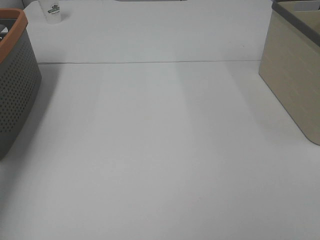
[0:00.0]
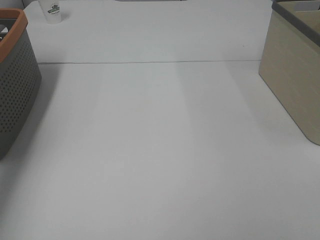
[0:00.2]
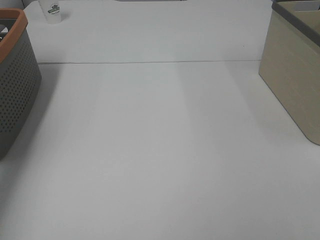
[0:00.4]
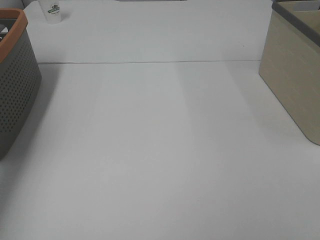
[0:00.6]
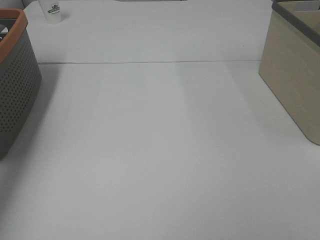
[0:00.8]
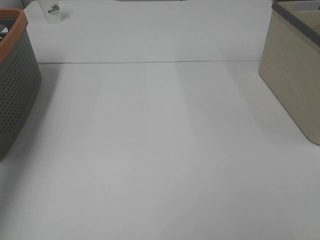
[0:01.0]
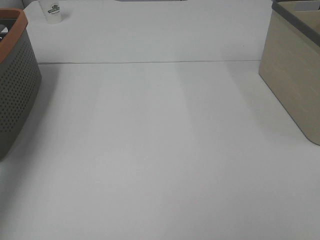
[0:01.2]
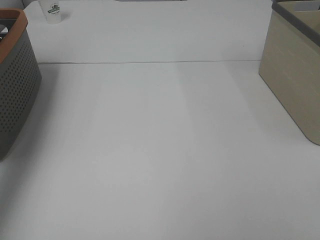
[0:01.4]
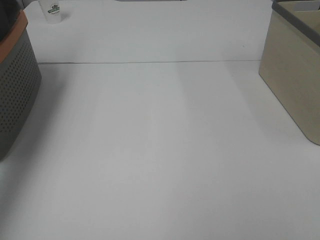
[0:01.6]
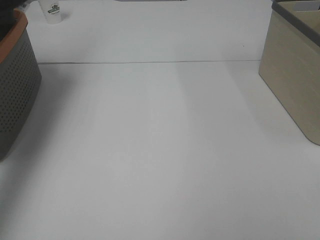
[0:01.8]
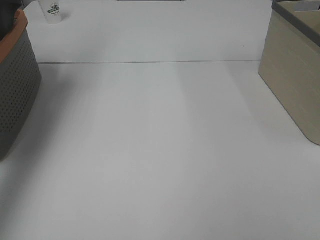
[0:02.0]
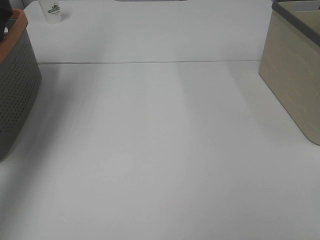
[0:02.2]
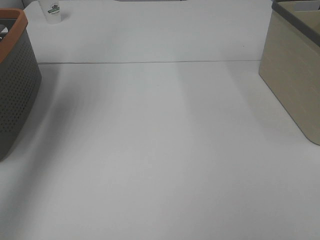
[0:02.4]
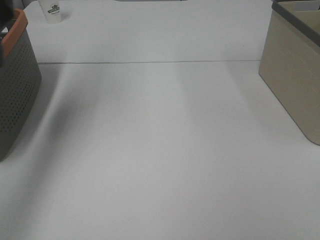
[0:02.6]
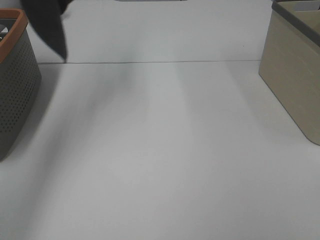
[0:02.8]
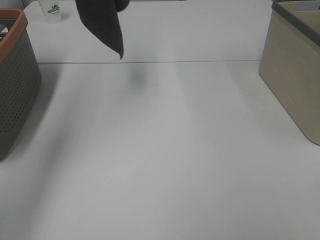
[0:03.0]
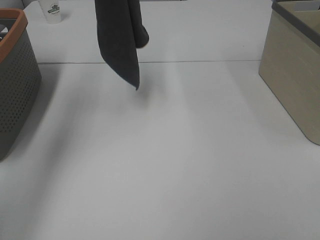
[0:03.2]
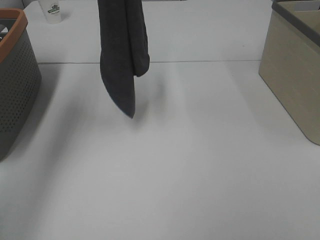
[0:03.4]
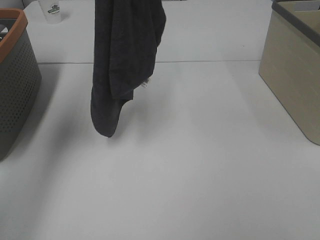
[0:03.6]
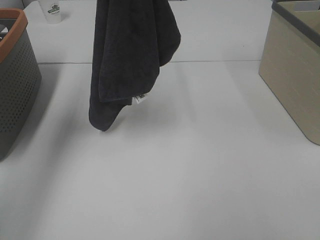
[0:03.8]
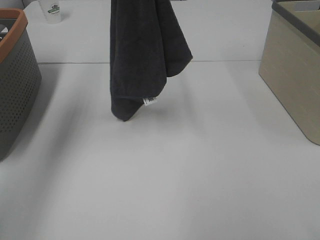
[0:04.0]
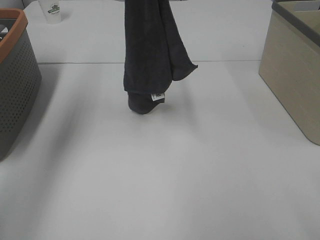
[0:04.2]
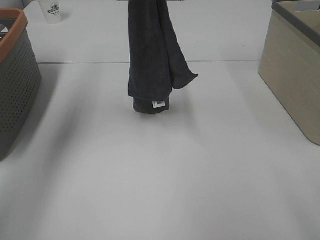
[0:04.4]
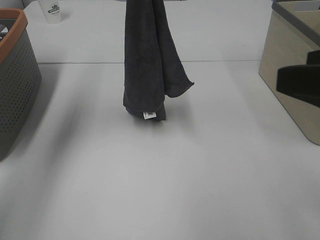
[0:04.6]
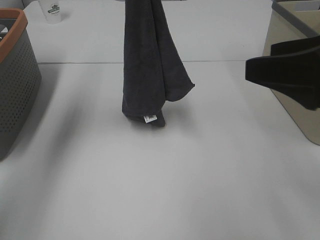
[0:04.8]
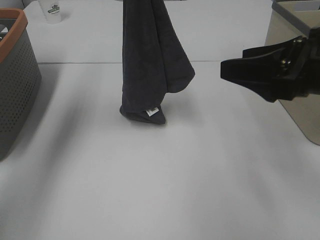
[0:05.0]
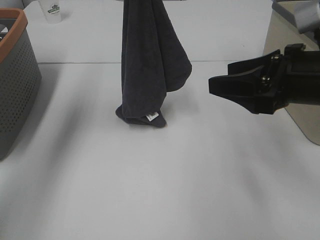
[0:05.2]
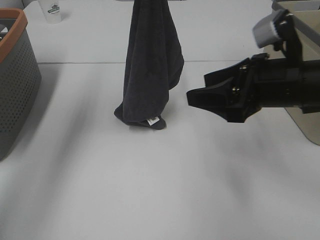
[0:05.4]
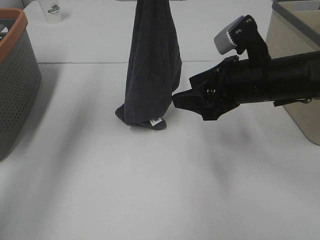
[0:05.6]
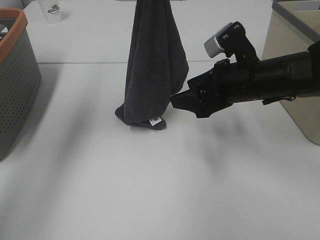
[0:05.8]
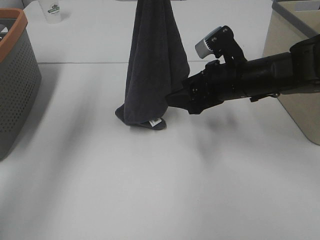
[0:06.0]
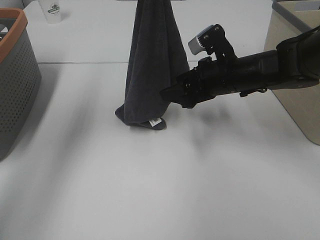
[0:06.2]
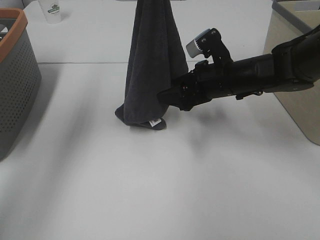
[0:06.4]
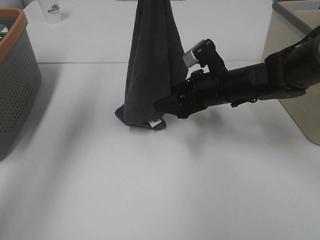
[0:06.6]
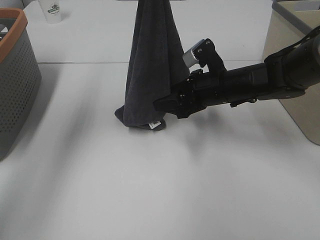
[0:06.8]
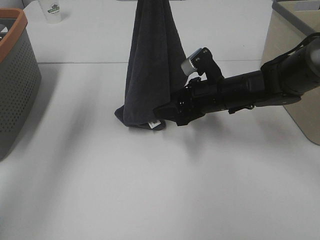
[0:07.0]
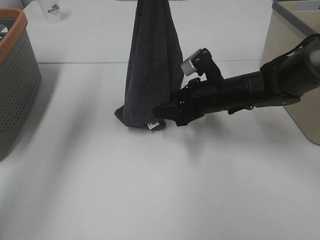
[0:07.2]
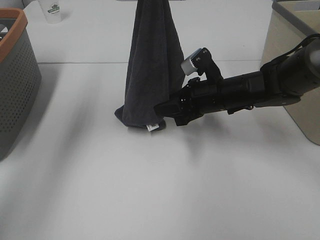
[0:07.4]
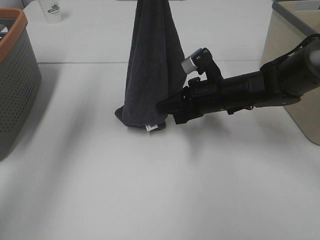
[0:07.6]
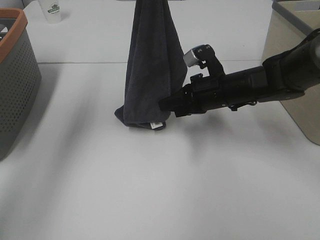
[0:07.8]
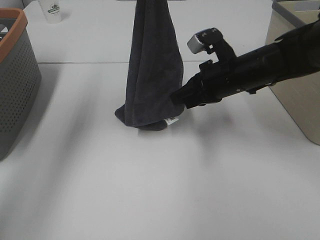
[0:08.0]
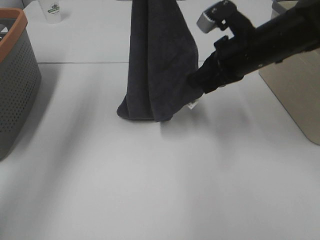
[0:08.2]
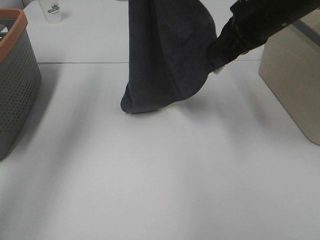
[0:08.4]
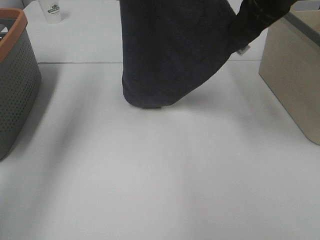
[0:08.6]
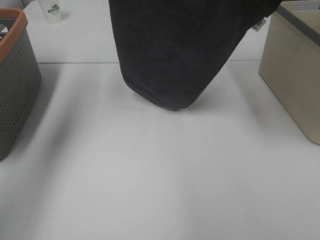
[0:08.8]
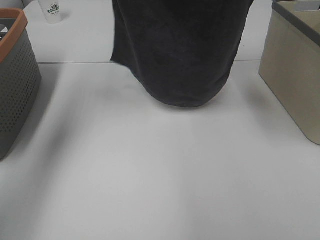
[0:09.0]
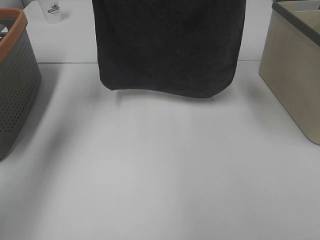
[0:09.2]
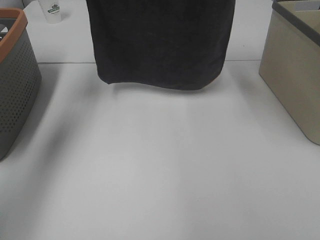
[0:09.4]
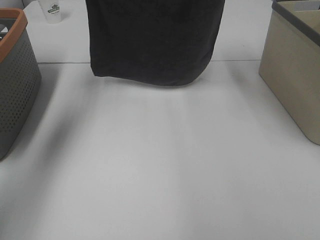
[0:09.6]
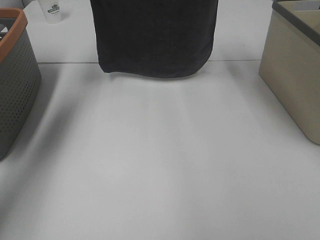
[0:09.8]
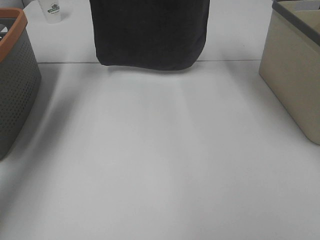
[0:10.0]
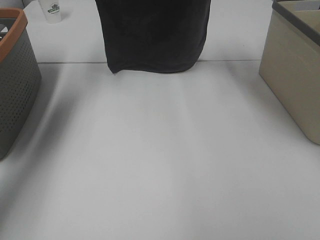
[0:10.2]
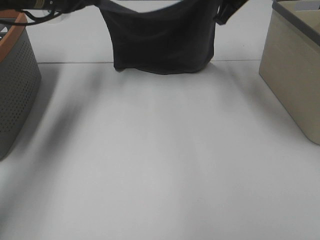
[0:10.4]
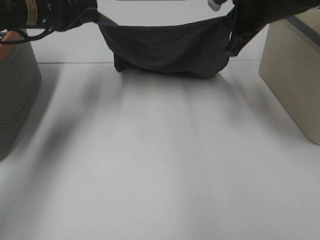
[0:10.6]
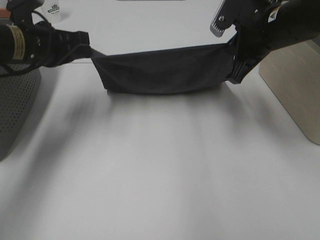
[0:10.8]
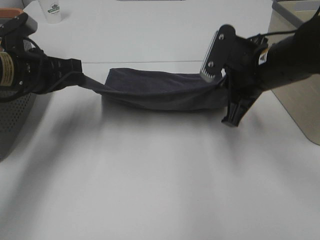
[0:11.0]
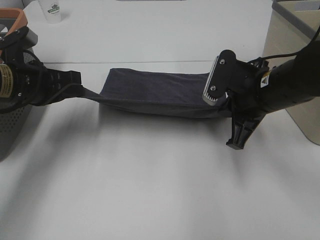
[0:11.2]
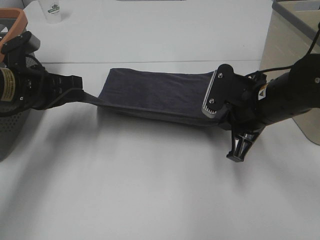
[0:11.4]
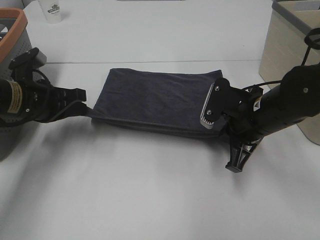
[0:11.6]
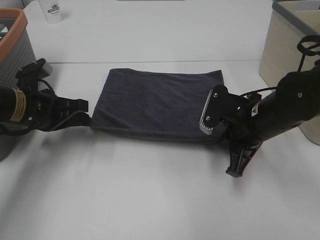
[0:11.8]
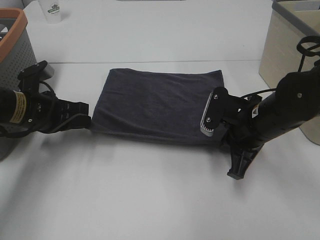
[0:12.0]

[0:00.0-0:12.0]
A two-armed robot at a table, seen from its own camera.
Task of the whole recording: Remove the towel and place it.
Step, 0:02.8 to 0:06.6: Right hand: grab a corner of the grey towel and straighten it.
Step, 0:06.8 to 0:08.6: Left hand: spread the grey towel flat on the table.
Step, 0:06.8 to 0:08.6: Right hand: spread the grey towel flat on the table.
0:00.0 to 0:01.6: The left gripper shifts approximately 25 cm upward.
0:01.6 to 0:03.0: The left gripper moves to the right, about 15 cm.
0:03.0 to 0:04.4: The right gripper travels forward by about 10 cm, while the left gripper moves downward, some 10 cm.
0:04.4 to 0:06.0: The left gripper moves approximately 5 cm. Meanwhile the right gripper shifts about 30 cm forward and downward.
0:06.0 to 0:07.6: The right gripper moves downward, about 5 cm, and closes up.
0:07.6 to 0:09.0: The right gripper goes about 30 cm upward; the left gripper heads to the left, covering roughly 5 cm.
0:09.0 to 0:10.4: Both grippers move downward and forward, some 10 cm.
0:10.4 to 0:12.0: The right gripper travels downward and backward by about 25 cm; the left gripper travels backward and downward by some 20 cm.

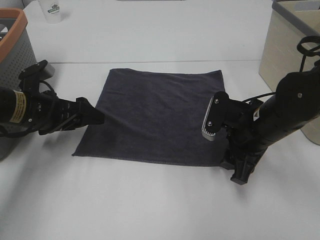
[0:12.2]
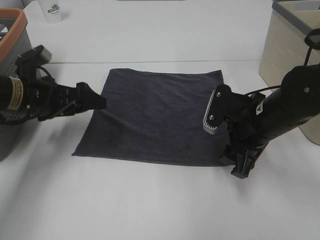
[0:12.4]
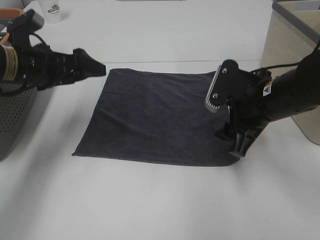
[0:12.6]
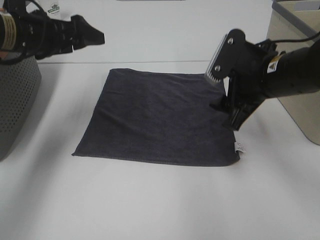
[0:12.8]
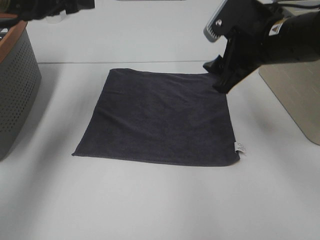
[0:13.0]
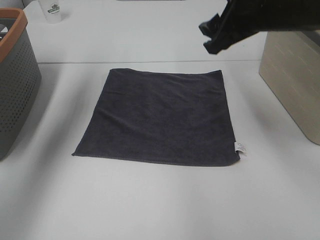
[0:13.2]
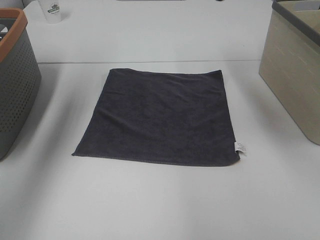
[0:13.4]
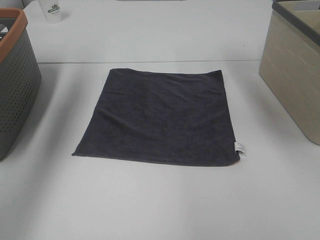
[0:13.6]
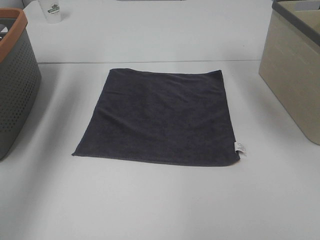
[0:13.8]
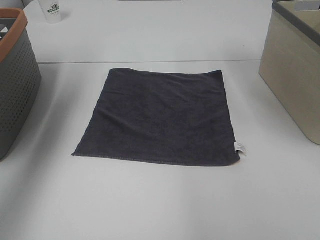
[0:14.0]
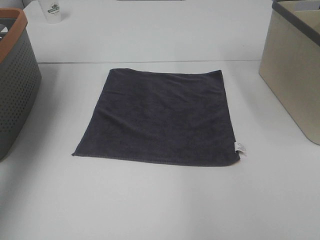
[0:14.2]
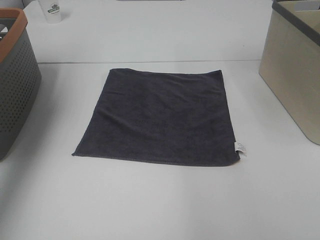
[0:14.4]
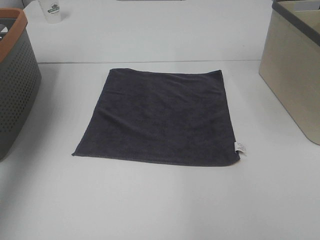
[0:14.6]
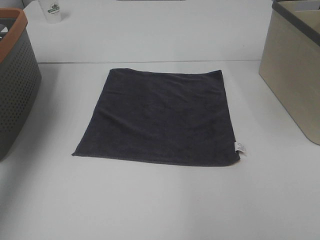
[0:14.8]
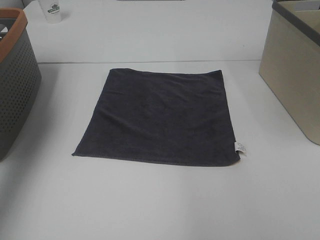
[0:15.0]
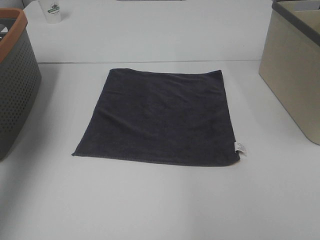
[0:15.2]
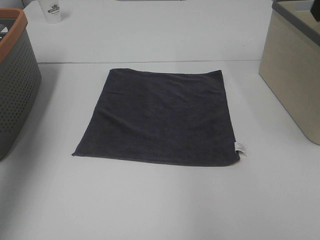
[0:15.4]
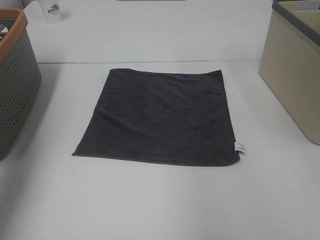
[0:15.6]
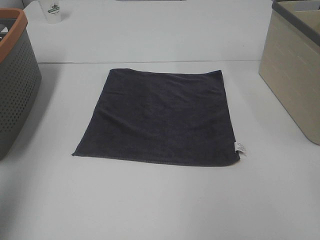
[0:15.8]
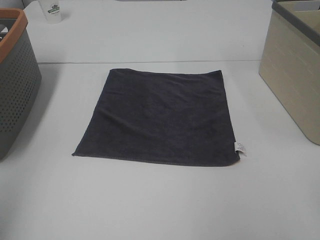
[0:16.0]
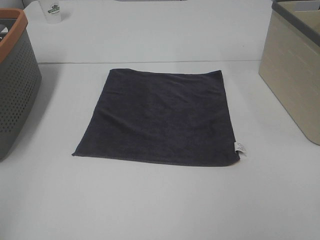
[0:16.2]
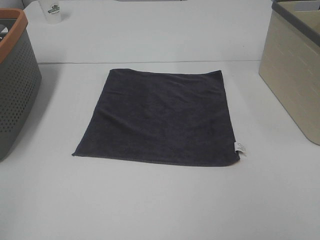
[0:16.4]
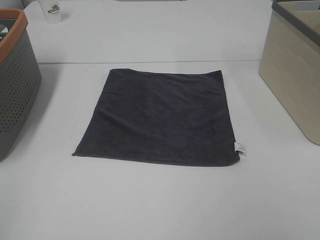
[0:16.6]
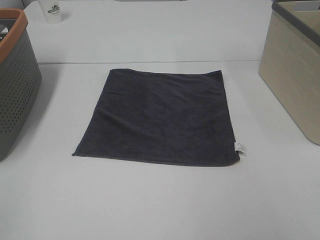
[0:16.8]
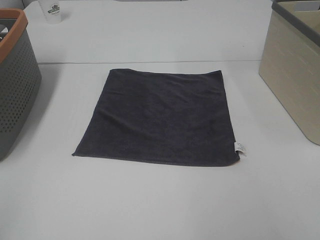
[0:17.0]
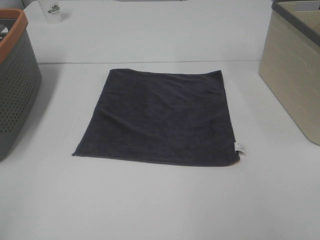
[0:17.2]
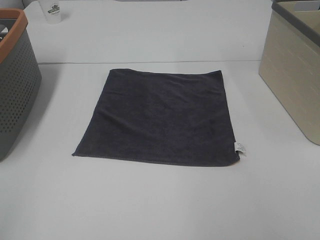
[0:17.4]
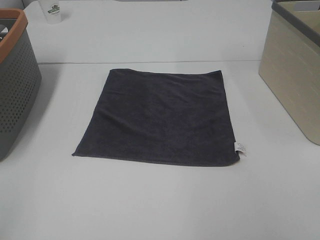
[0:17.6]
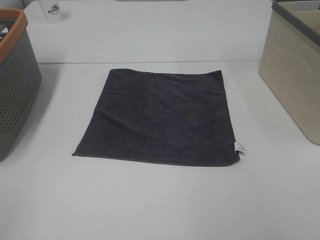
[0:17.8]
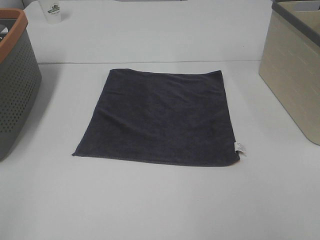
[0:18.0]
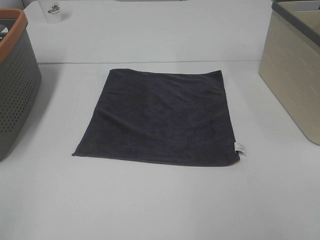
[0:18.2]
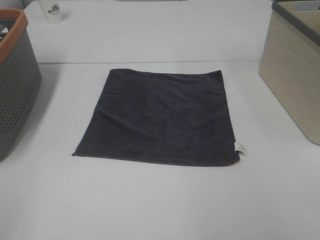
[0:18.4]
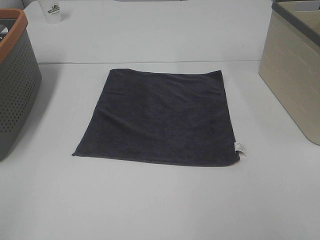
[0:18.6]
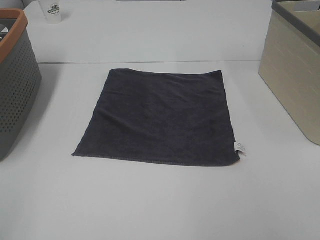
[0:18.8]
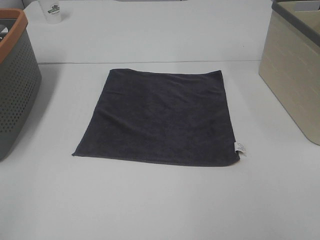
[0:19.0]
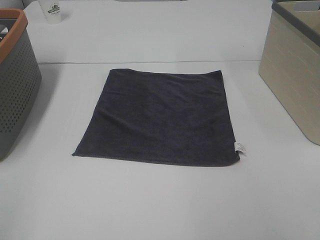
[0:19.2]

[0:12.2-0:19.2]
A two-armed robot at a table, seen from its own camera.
Task of the whole recording: Remove the towel and place it.
0:12.2 to 0:13.6: Both grippers move upward, some 25 cm.
0:13.6 to 0:15.0: The right gripper moves to the right and upward, some 10 cm; the left gripper goes some 10 cm to the left, backward and upward.
0:15.0 to 0:16.4: The left gripper goes roughly 30 cm backward.
0:17.8 to 0:19.2: Both grippers stay put.

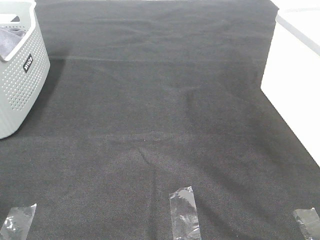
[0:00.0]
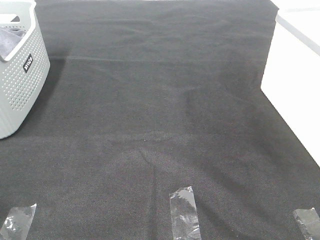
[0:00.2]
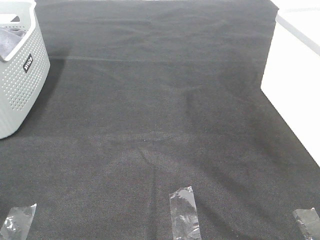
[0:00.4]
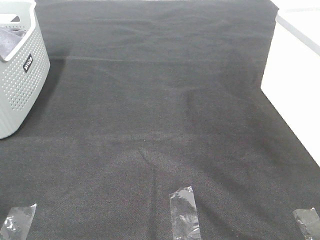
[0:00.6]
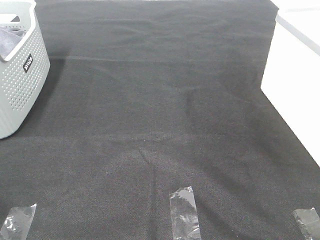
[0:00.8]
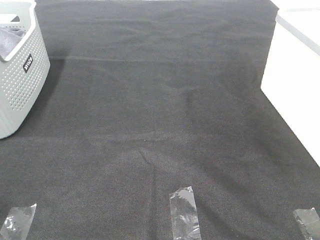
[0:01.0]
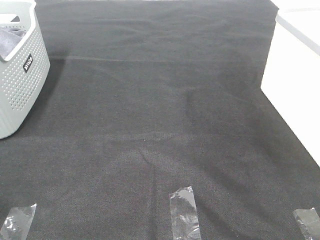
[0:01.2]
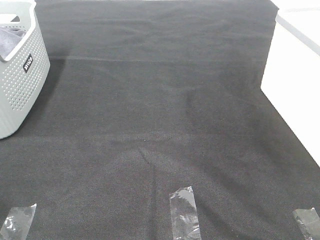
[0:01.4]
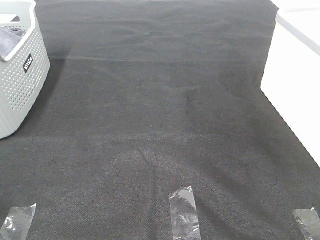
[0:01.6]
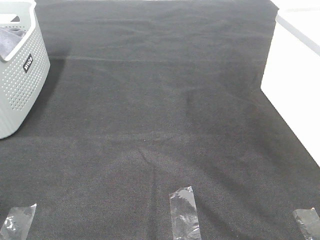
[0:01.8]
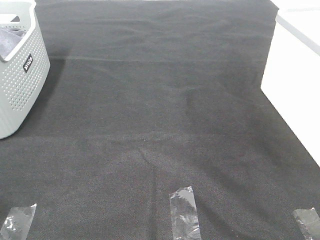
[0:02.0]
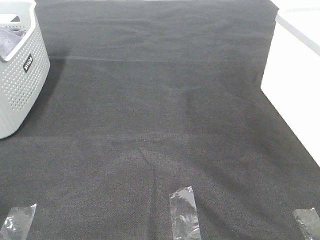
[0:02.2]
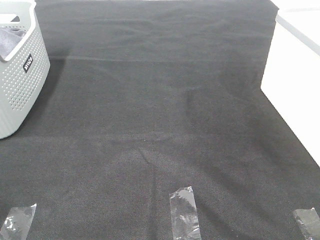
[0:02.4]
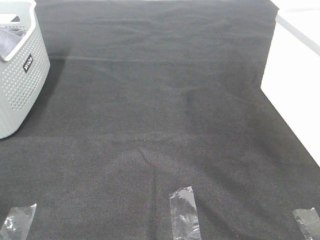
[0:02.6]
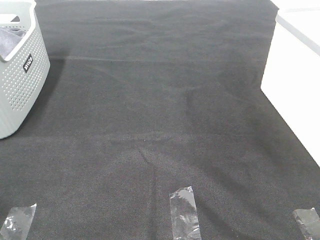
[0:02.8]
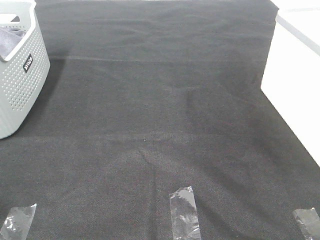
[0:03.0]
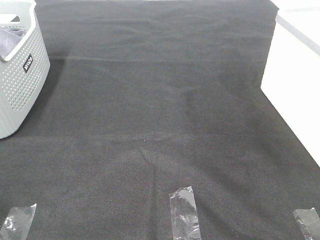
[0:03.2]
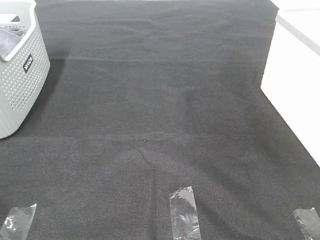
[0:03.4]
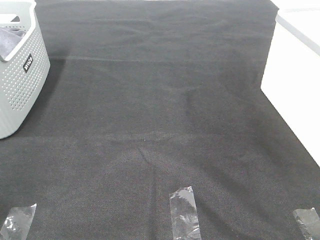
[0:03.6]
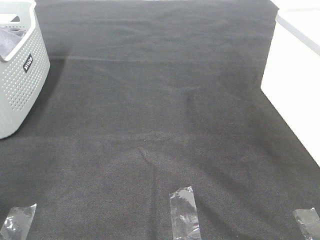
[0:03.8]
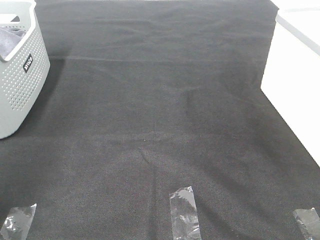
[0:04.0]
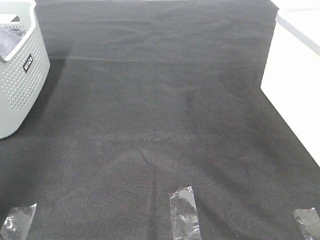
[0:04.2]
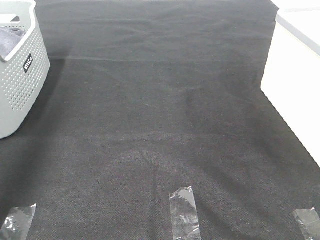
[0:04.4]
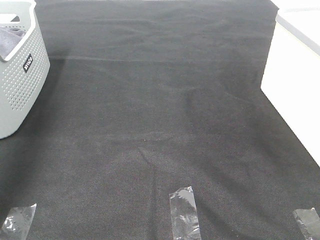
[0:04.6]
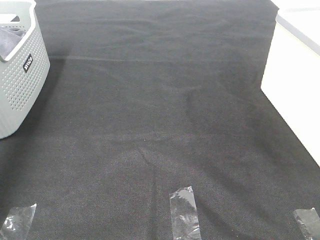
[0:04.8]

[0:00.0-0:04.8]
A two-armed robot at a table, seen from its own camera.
Task of the whole recording: Remove the towel and place it.
0:00.0 to 0:03.2: Both grippers stay about where they are.
0:03.2 to 0:04.8: The left gripper moves forward, about 40 cm.
